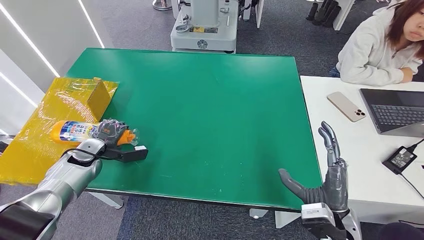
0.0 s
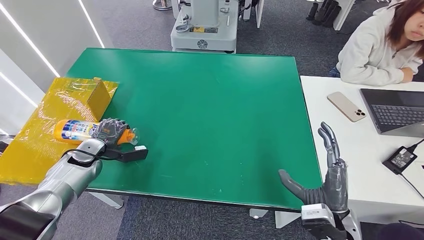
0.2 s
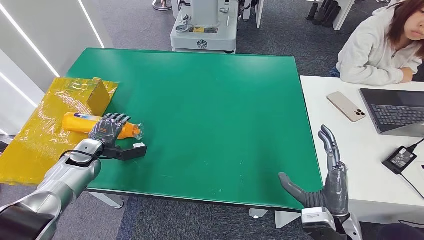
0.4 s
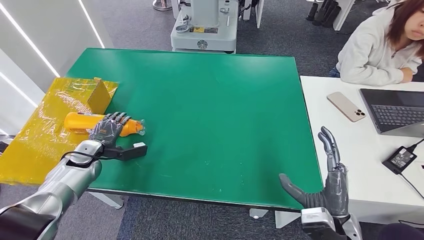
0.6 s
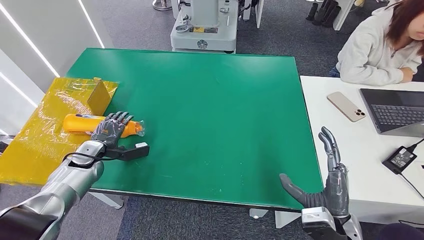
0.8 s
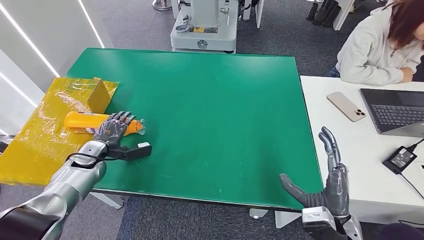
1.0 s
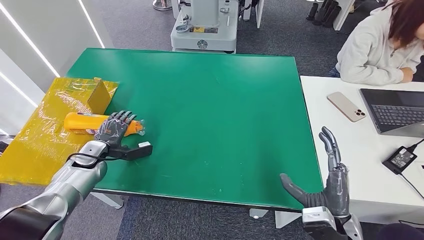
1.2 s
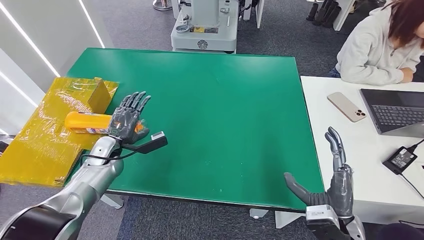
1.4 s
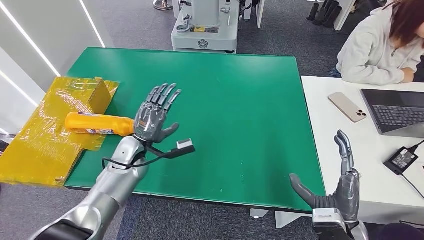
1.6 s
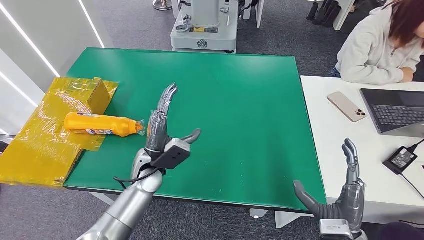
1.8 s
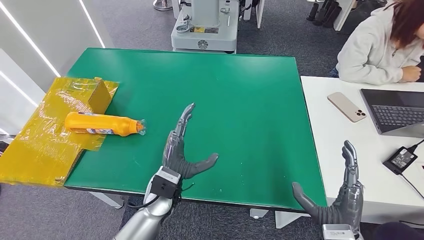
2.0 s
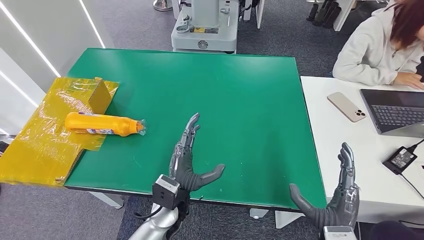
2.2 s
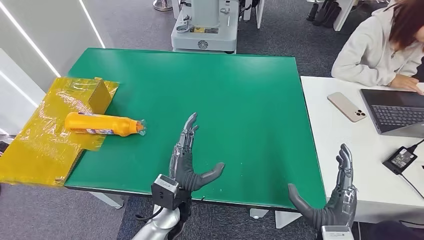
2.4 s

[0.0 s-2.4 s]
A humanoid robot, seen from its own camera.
Step, 0.0 to 2.2 s: Turn the bottle to the front side.
0.0 to 1.2 s: There are only small adjustments of the hands.
1.2 to 2.4 s: The left hand moves to the right, approximately 30 cm.
